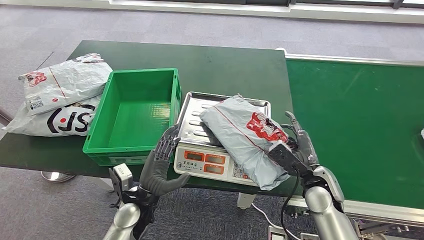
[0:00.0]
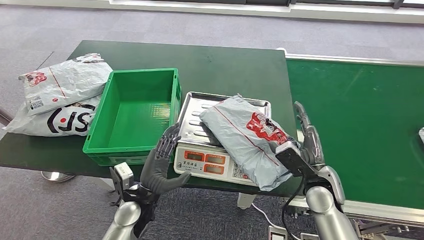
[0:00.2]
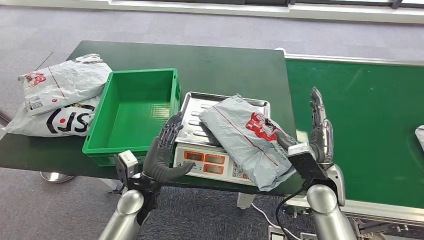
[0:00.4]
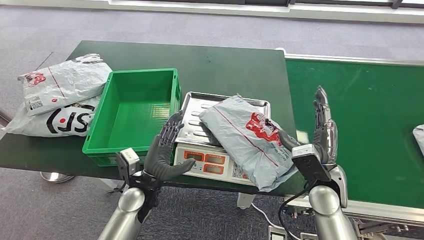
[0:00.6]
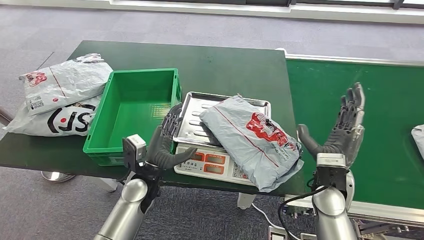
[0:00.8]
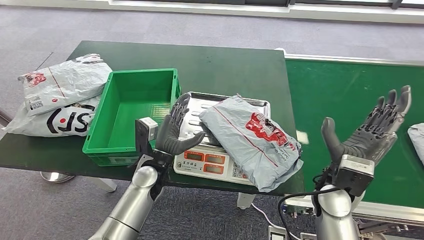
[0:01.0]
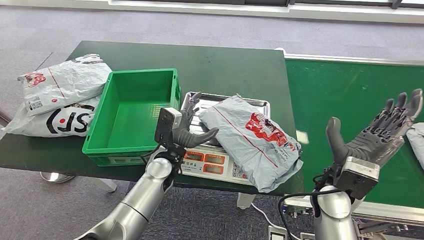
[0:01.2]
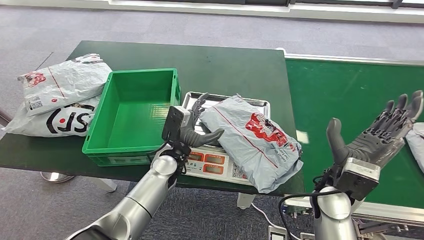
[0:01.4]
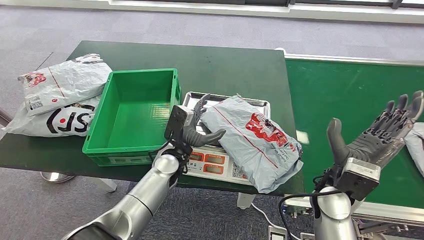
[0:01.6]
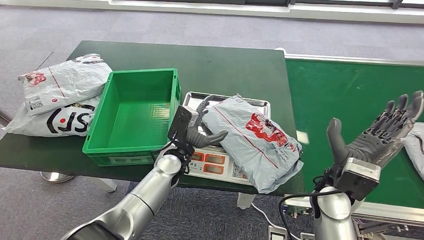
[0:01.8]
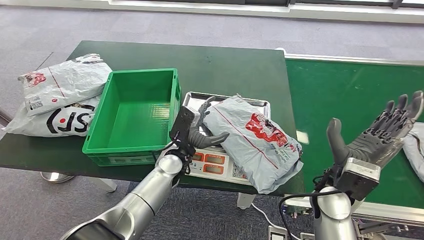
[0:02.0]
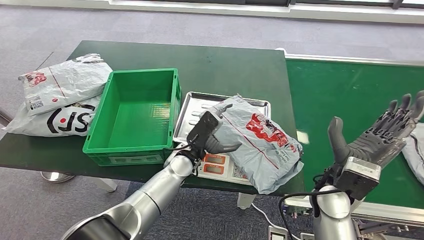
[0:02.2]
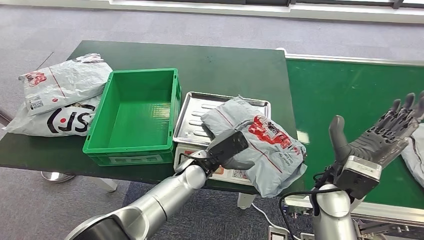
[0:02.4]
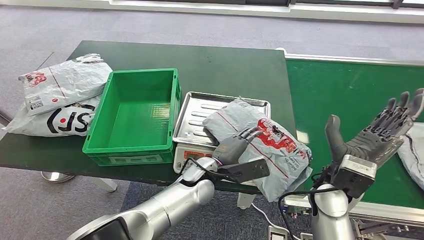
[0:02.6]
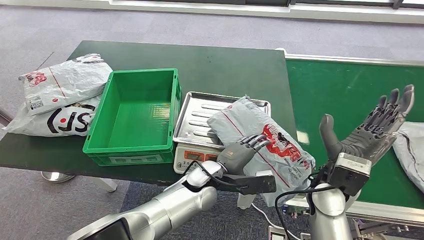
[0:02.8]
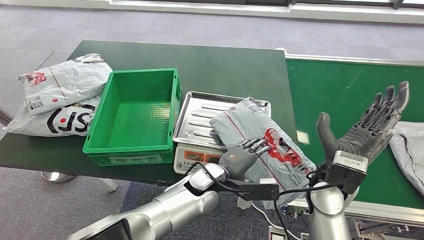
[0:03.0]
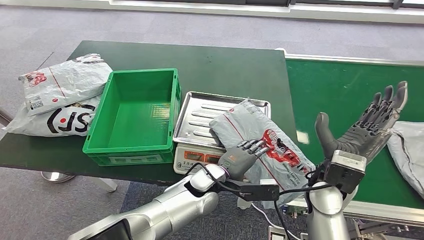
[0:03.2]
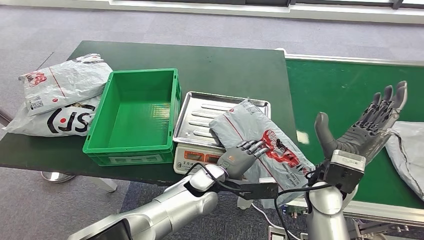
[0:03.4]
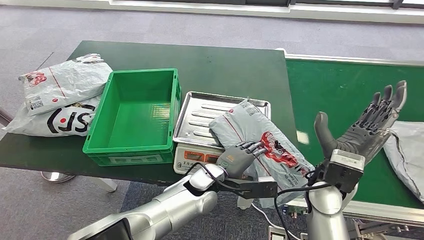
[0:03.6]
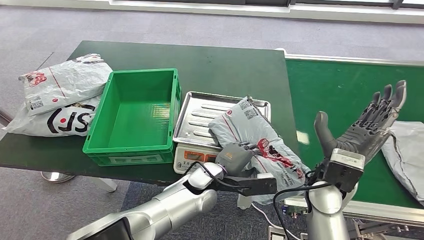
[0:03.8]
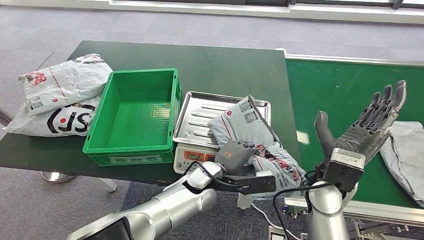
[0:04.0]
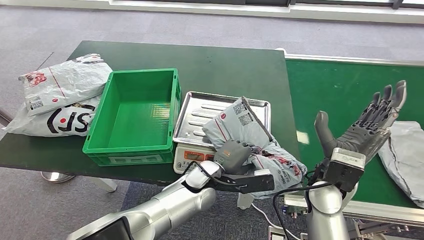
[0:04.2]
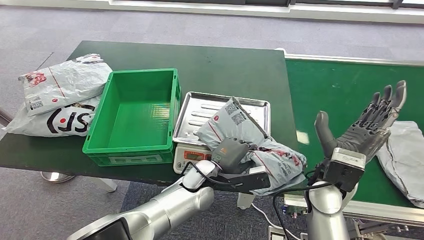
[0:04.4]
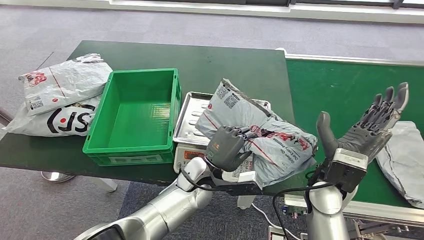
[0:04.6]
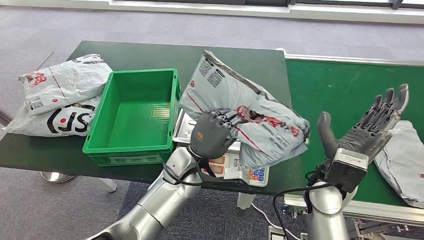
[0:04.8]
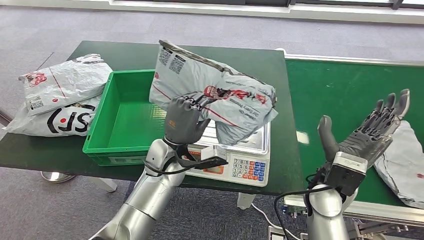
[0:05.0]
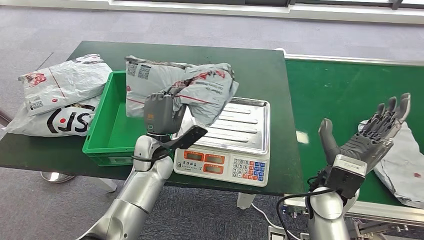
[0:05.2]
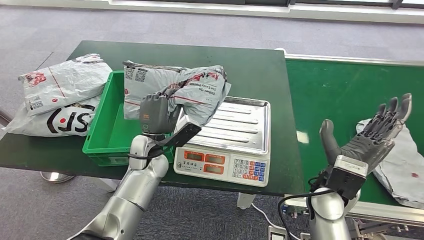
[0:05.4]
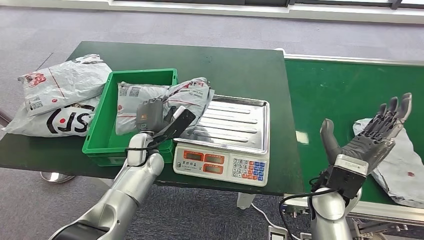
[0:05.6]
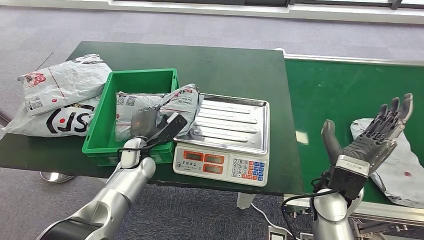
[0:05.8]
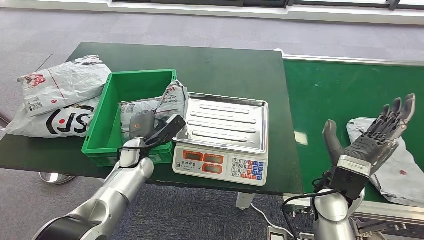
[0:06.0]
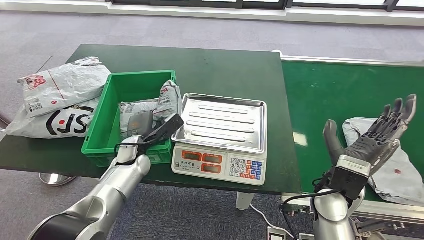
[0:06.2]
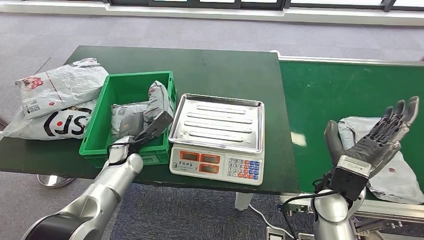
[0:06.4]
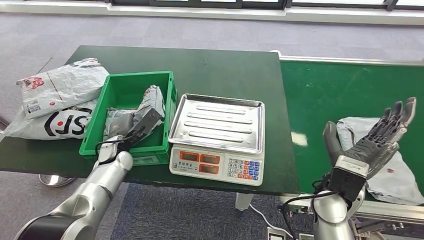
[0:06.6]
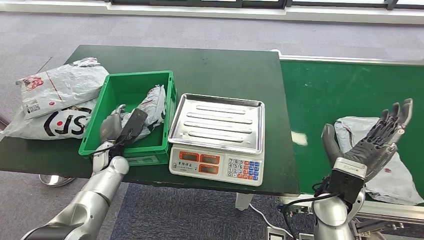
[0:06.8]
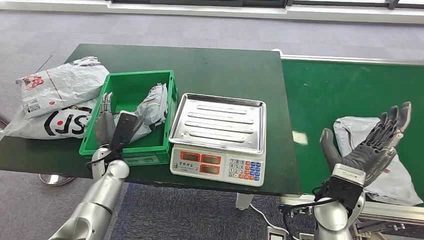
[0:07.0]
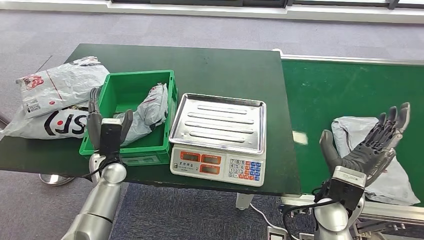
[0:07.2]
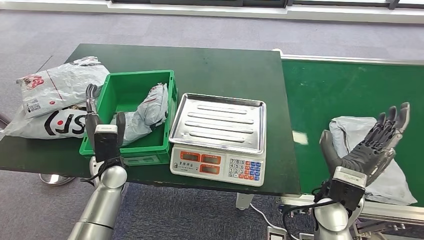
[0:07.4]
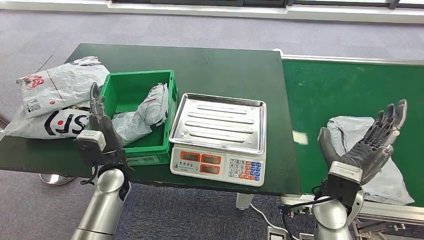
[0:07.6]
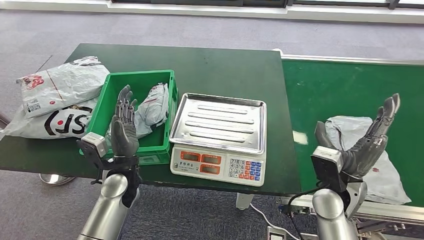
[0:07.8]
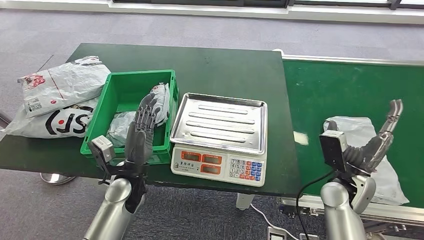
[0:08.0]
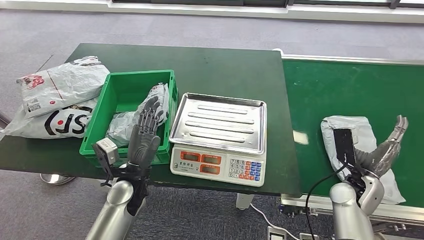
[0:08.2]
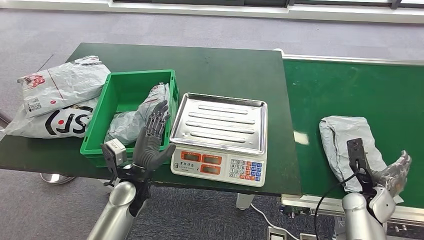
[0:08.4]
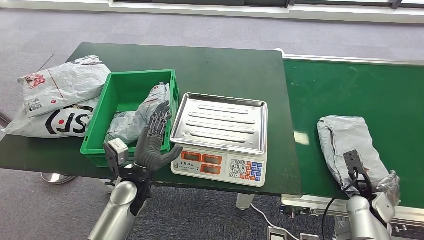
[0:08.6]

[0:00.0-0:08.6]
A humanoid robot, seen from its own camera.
Step, 0:01.8 to 0:05.2: Pick up the parcel from the inbound machine.
Step, 0:05.4 to 0:08.6: Put the parcel inside the courier box.
0:00.0 to 0:01.4: The left hand moves forward, to the right and upward, approximately 15 cm. The right hand shifts some 10 cm upward.
0:02.8 to 0:04.4: There are only small adjustments of the hands.
0:07.2 to 0:08.6: The right hand travels to the right and downward by about 25 cm. Meanwhile the left hand goes about 10 cm to the right.
